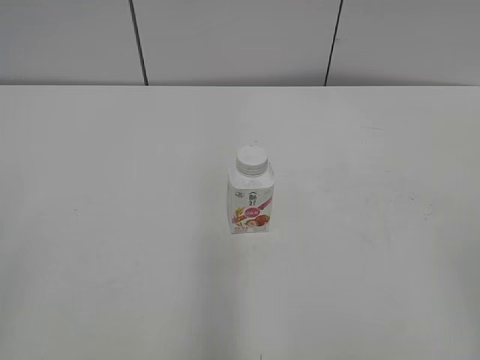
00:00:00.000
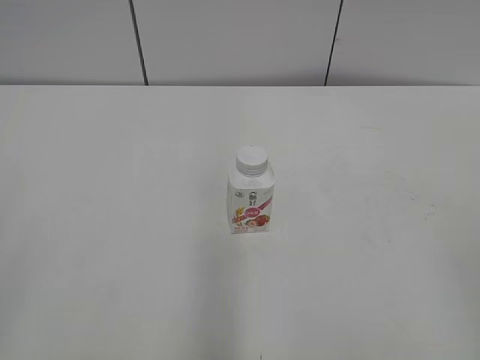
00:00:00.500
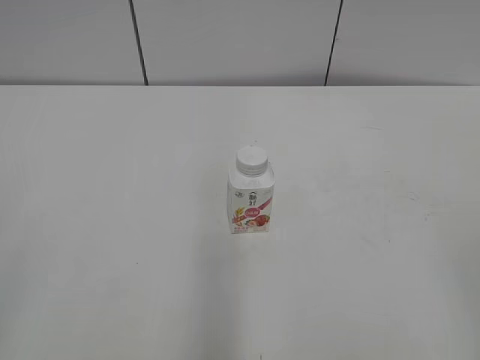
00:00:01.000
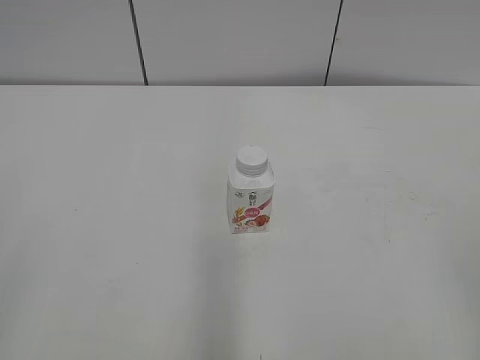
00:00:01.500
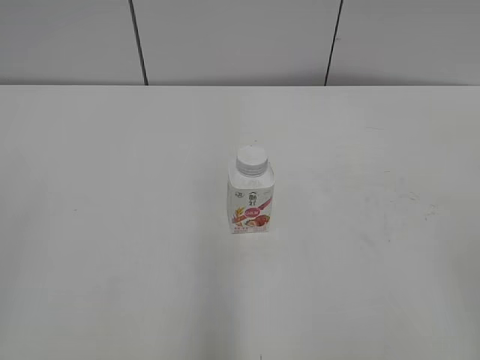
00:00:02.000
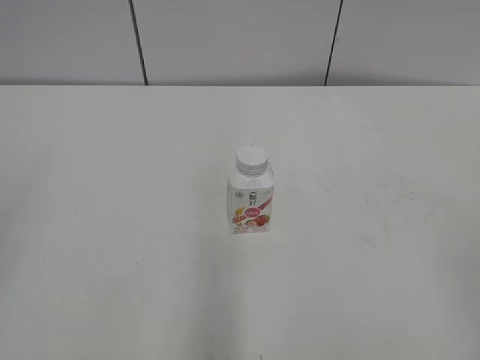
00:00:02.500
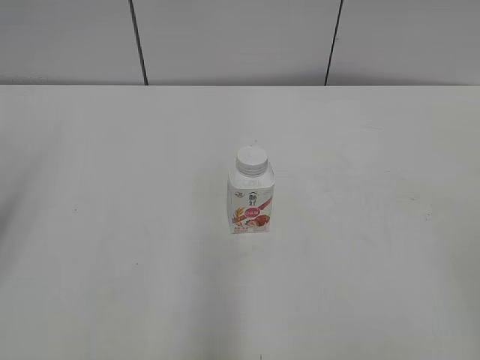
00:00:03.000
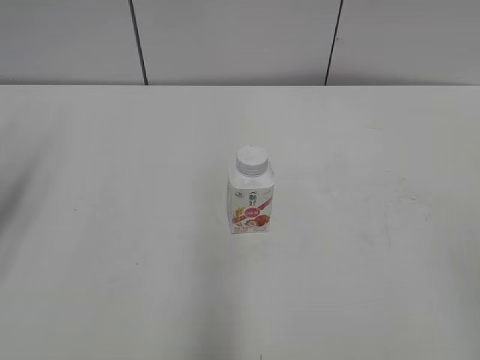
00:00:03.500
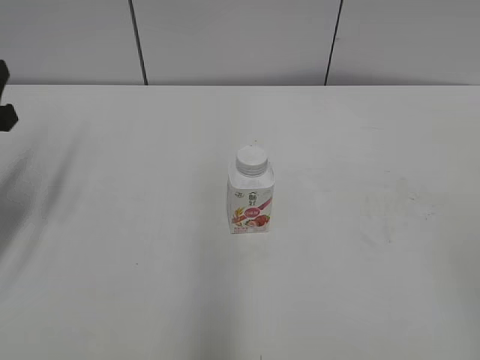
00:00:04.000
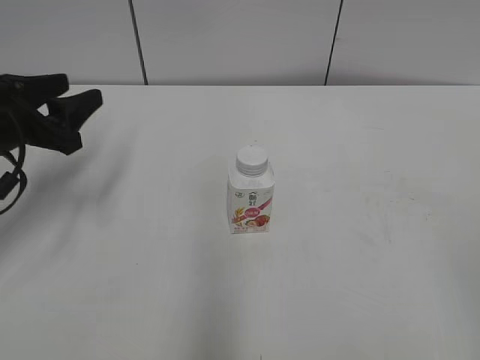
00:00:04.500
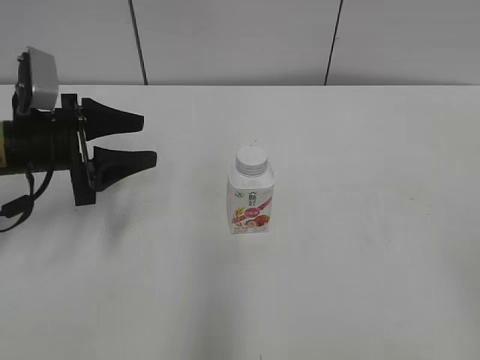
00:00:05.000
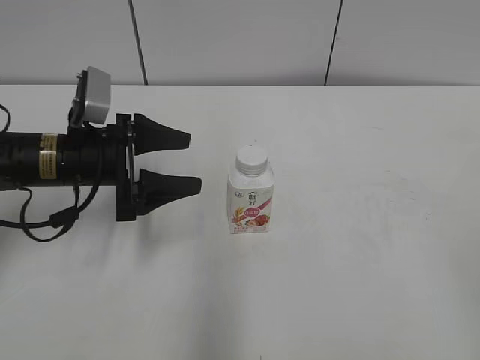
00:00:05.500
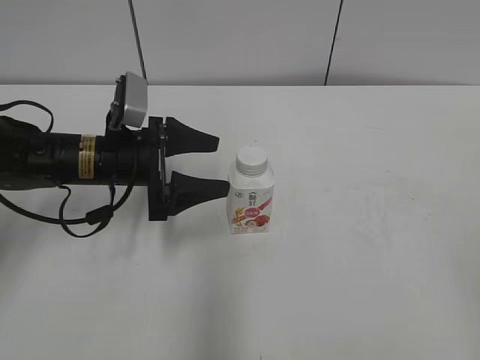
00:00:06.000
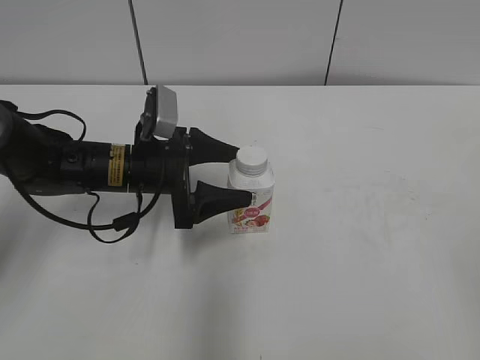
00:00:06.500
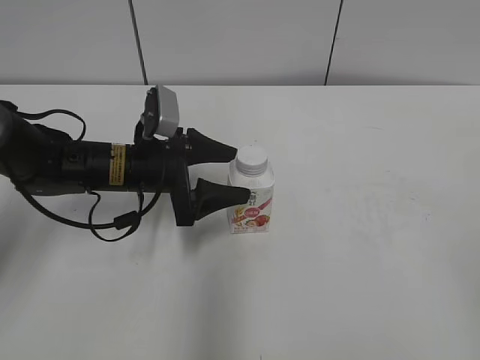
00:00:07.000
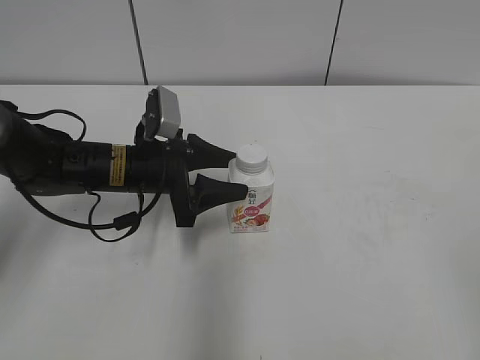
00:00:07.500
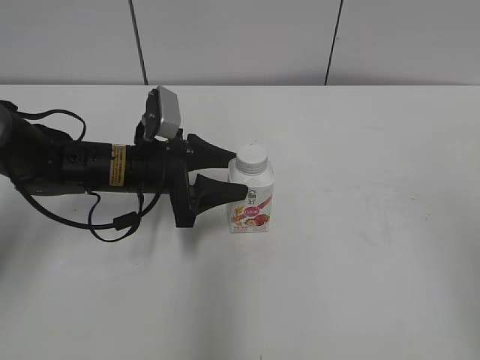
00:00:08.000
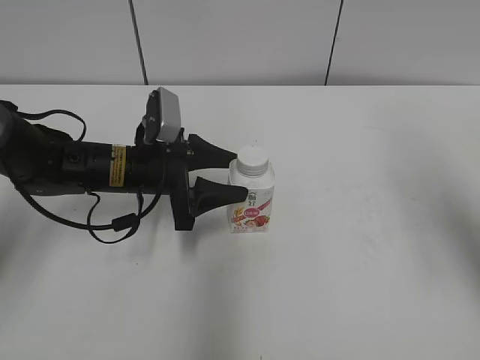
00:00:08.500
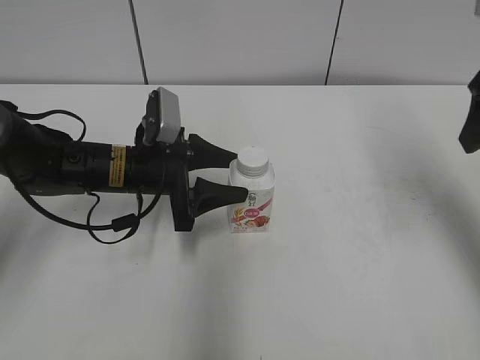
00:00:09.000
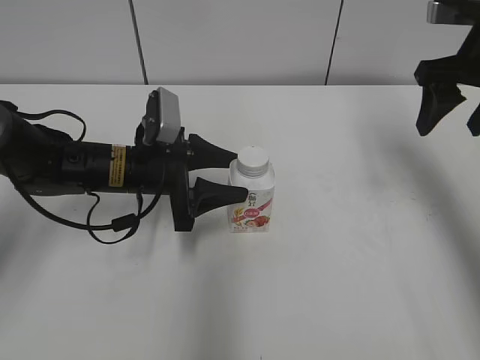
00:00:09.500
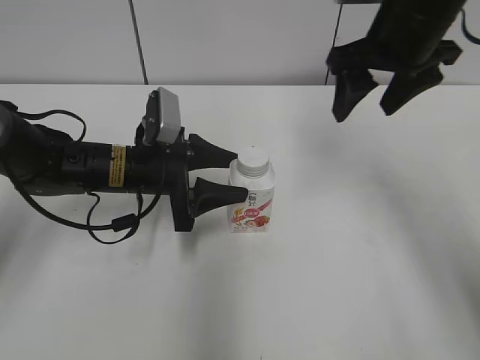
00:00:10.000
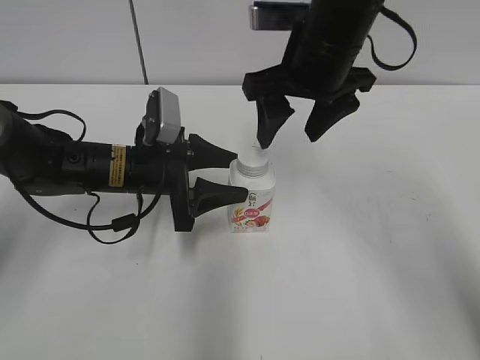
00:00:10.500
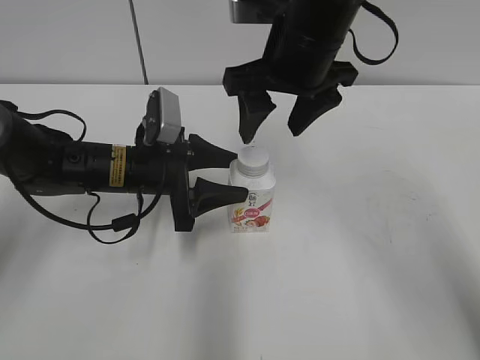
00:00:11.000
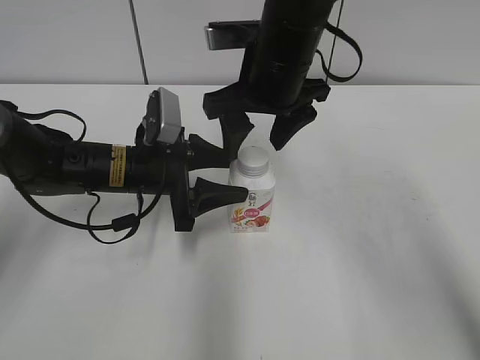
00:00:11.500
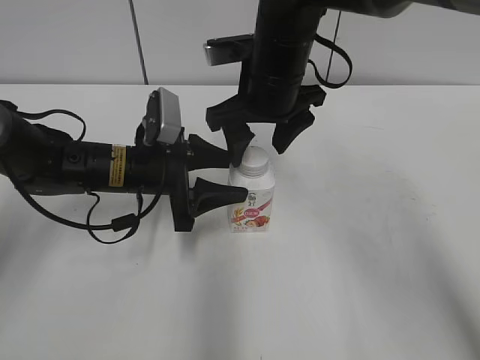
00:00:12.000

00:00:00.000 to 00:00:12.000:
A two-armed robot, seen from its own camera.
Step, 00:00:00.000 to 00:00:07.500: Grab the Yili Changqing with the left hand.
00:00:02.000 to 00:00:04.000: The left gripper travels forward and downward by some 30 cm.
00:00:04.000 to 00:00:06.000: The left gripper heads to the right, downward and forward, covering some 20 cm, and opens its fingers.
00:00:06.000 to 00:00:08.000: The left gripper closes up; the right gripper travels forward by some 5 cm.
00:00:08.000 to 00:00:10.000: The right gripper travels forward and to the left by about 35 cm.
00:00:10.000 to 00:00:12.000: The right gripper moves to the left and downward, some 15 cm.

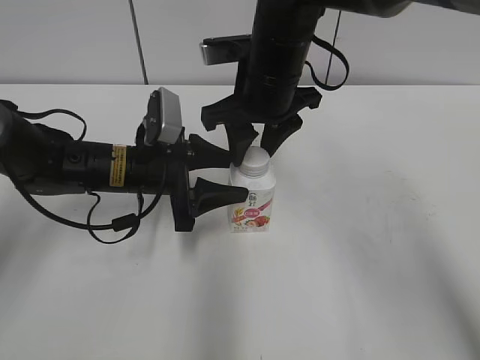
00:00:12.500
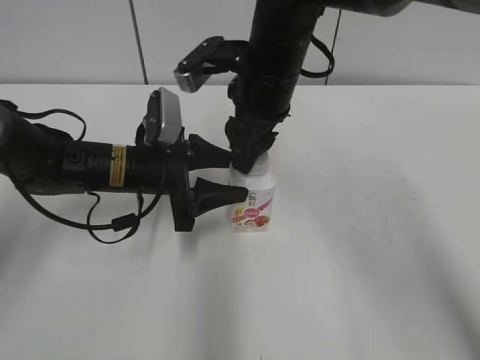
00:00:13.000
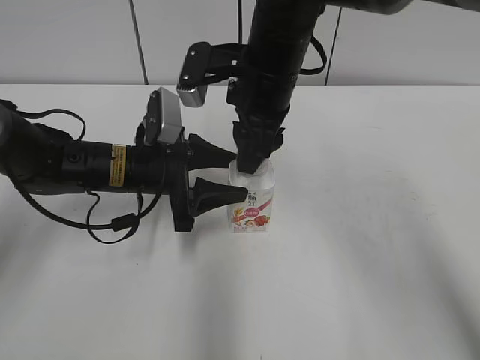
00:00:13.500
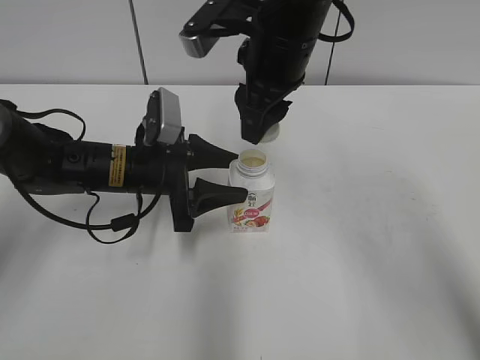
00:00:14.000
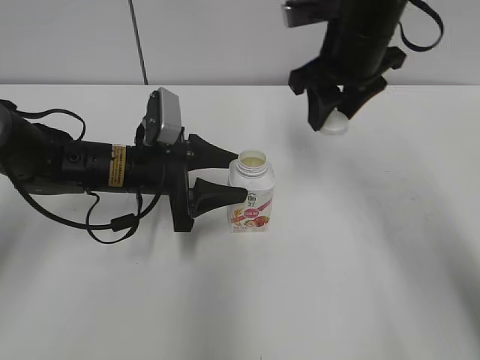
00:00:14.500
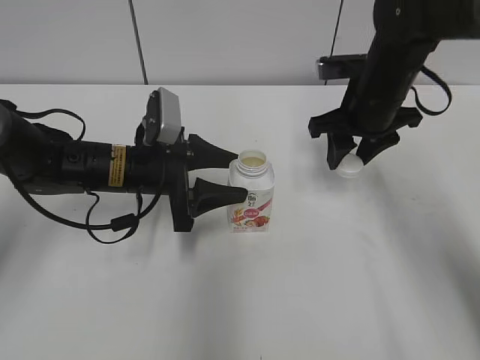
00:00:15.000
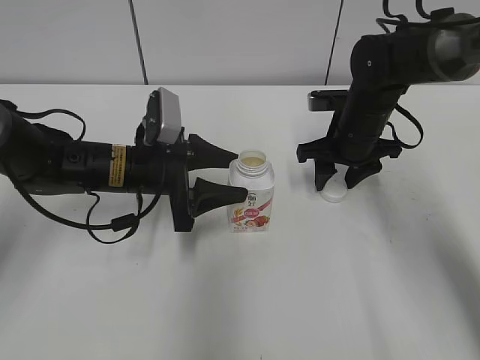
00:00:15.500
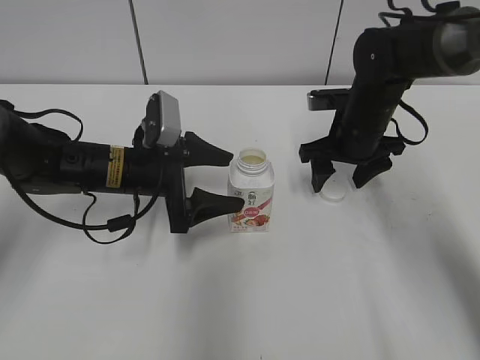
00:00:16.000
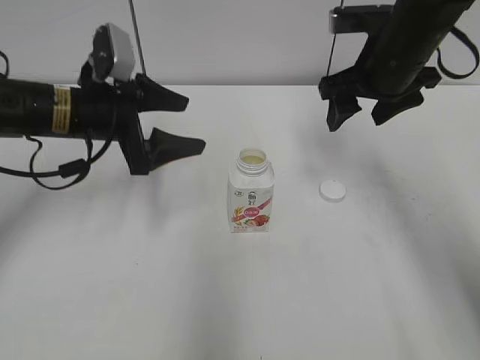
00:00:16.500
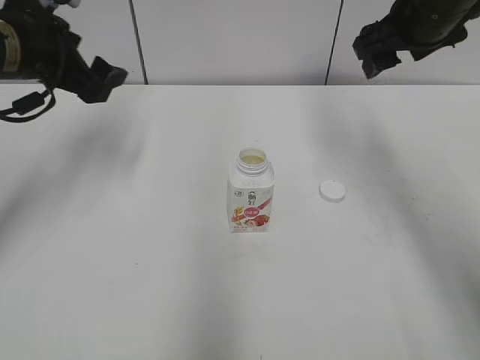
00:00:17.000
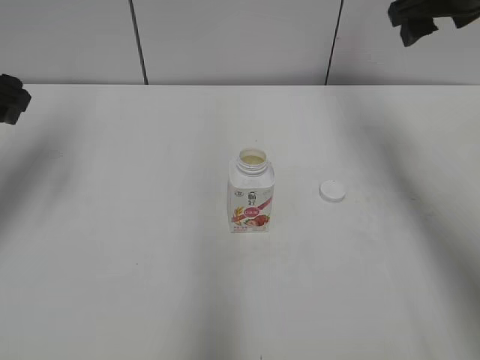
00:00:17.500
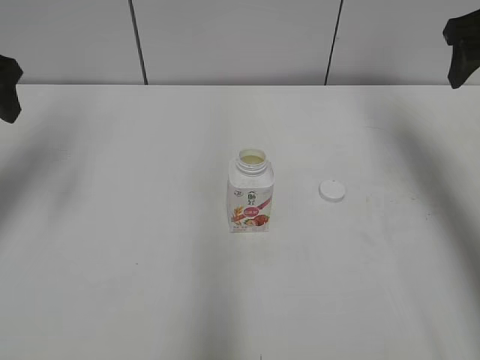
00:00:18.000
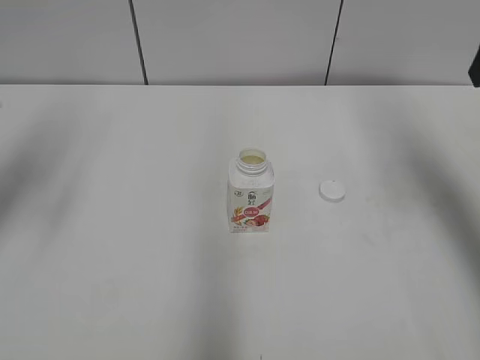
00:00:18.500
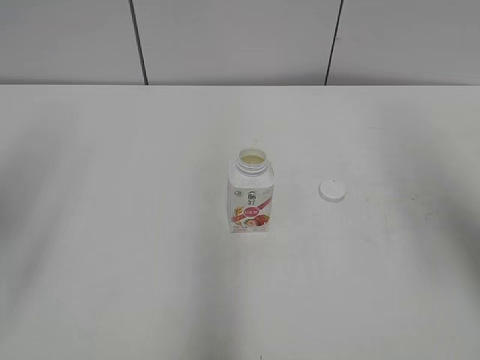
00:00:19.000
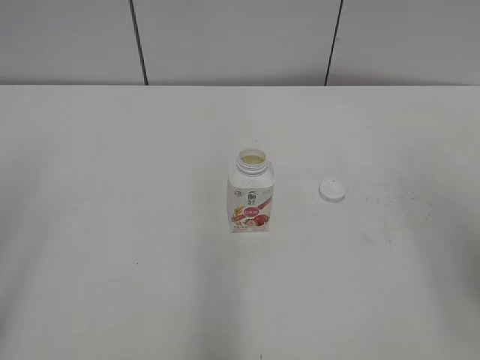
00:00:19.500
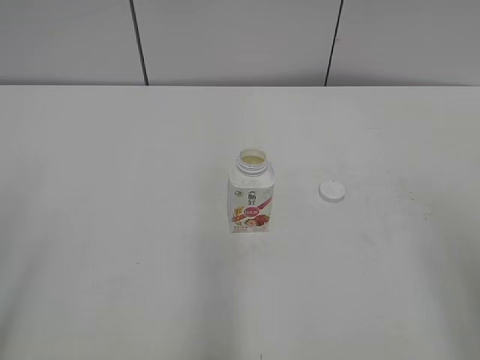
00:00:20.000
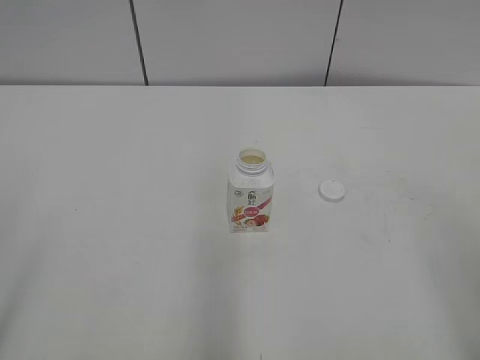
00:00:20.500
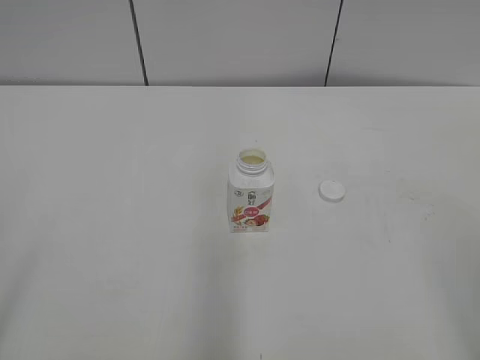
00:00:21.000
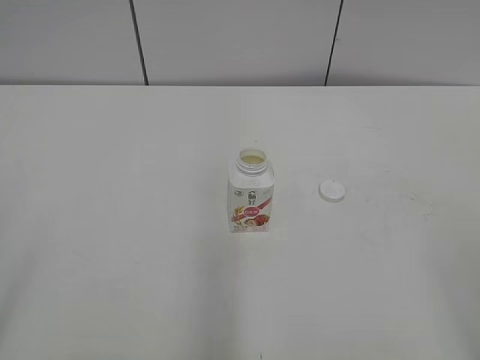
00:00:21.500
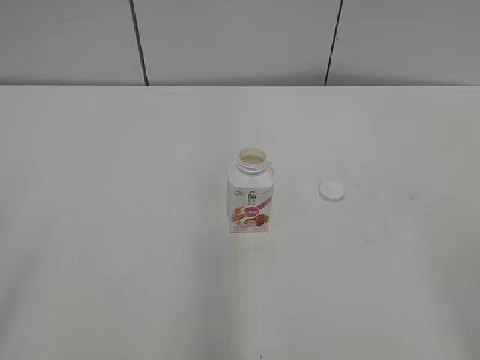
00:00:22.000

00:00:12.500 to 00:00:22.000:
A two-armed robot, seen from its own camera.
Step, 00:00:14.000 to 00:00:15.500: Place the bottle cap on the right.
00:00:12.500 to 00:00:14.500: The right gripper moves to the right, approximately 10 cm.
00:00:14.500 to 00:00:16.500: The right gripper moves some 15 cm downward and comes back, and opens. Meanwhile the left gripper travels upward by about 5 cm, and opens up.
00:00:16.500 to 00:00:18.000: The left gripper shifts some 20 cm upward and to the left. Meanwhile the right gripper moves to the right and upward, some 15 cm.
00:00:18.000 to 00:00:20.000: The grippers both shift backward by some 30 cm.
